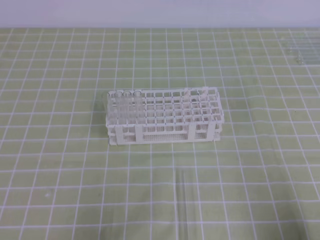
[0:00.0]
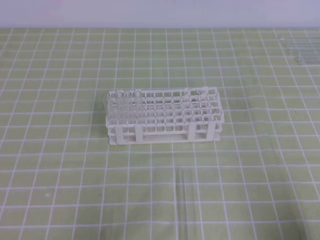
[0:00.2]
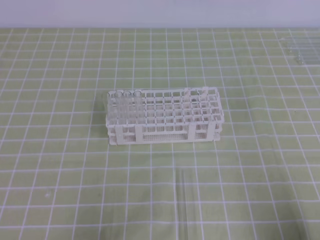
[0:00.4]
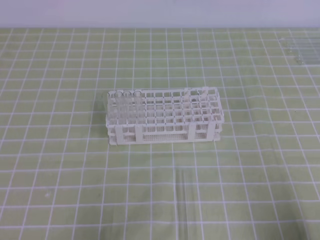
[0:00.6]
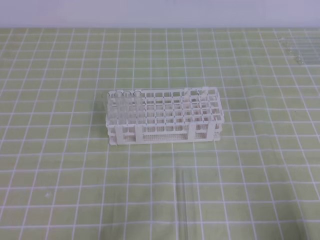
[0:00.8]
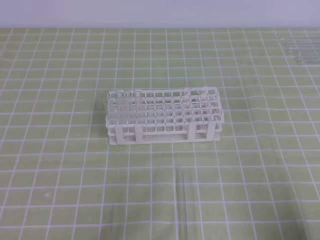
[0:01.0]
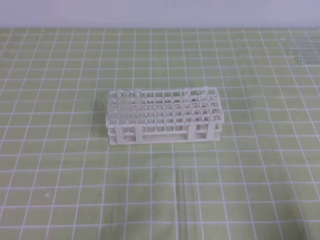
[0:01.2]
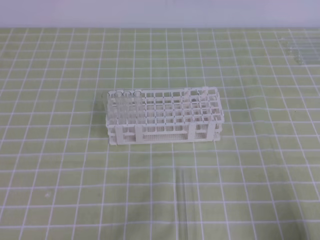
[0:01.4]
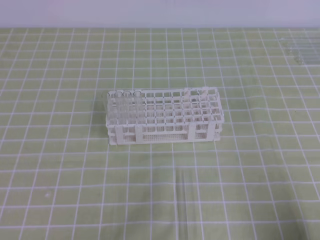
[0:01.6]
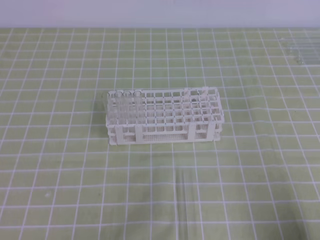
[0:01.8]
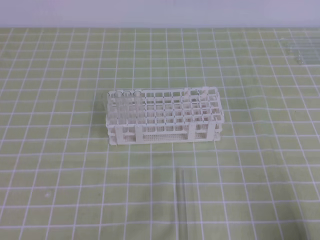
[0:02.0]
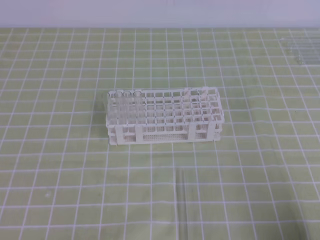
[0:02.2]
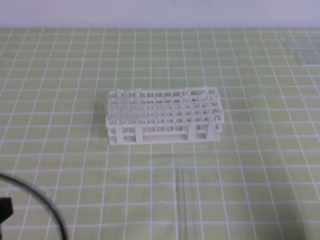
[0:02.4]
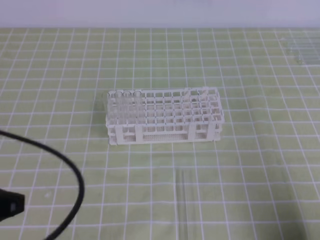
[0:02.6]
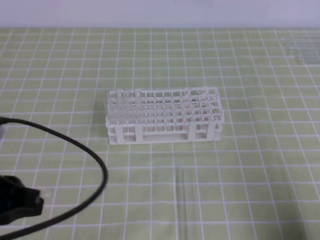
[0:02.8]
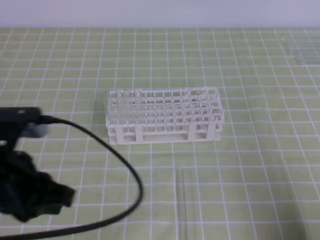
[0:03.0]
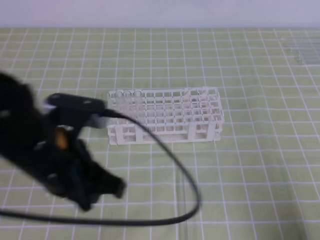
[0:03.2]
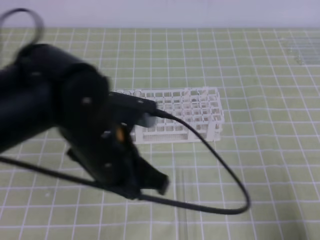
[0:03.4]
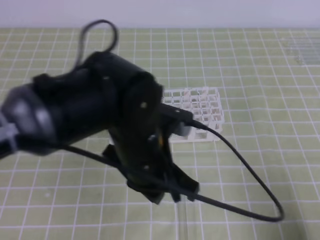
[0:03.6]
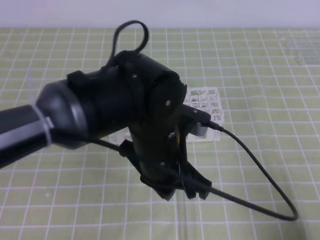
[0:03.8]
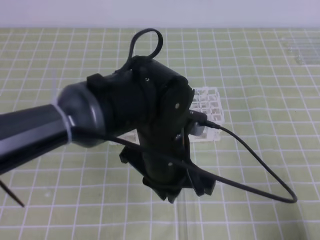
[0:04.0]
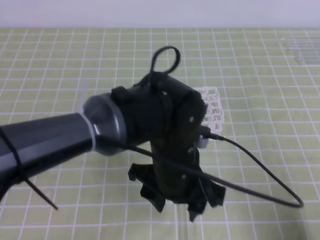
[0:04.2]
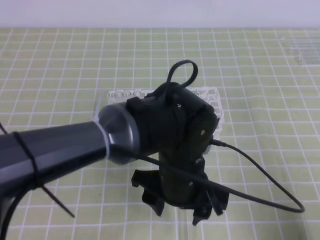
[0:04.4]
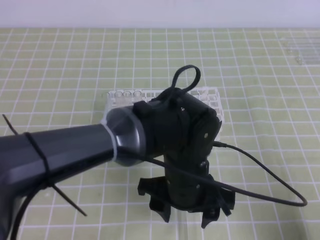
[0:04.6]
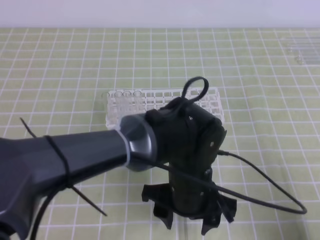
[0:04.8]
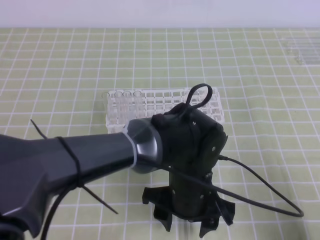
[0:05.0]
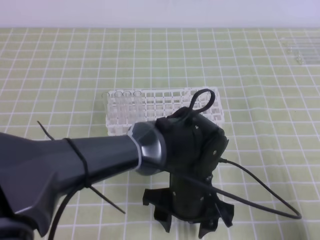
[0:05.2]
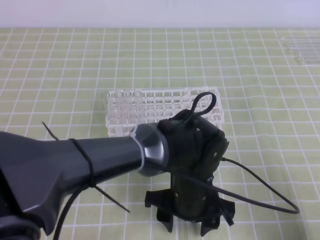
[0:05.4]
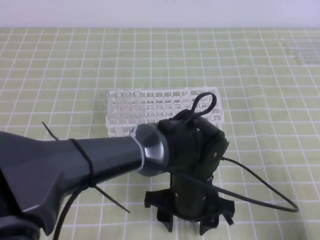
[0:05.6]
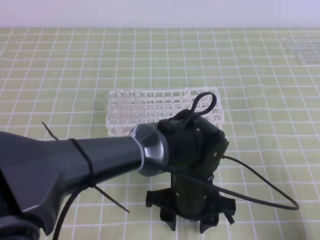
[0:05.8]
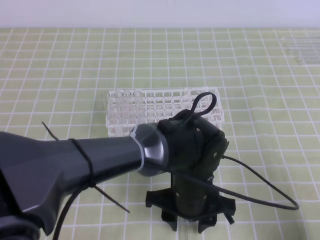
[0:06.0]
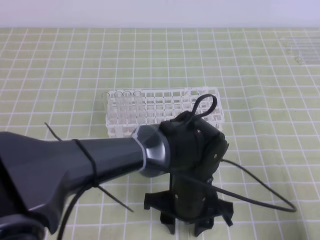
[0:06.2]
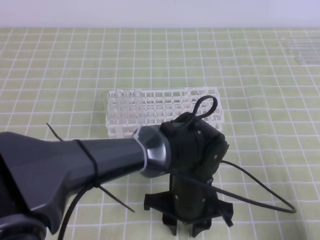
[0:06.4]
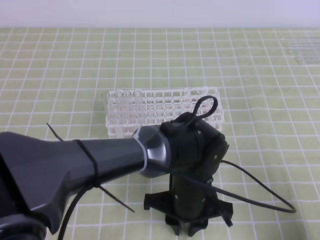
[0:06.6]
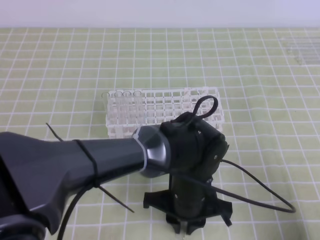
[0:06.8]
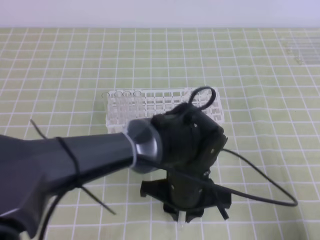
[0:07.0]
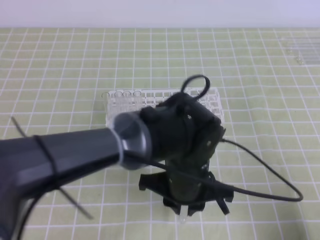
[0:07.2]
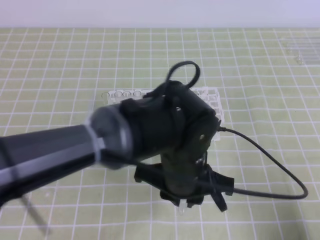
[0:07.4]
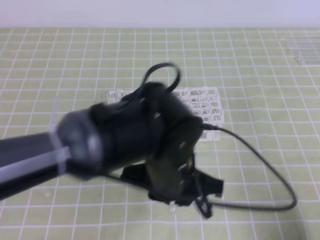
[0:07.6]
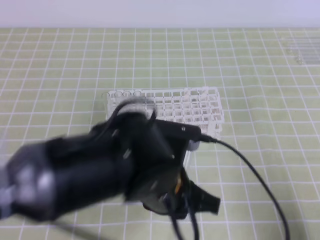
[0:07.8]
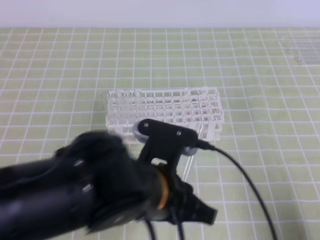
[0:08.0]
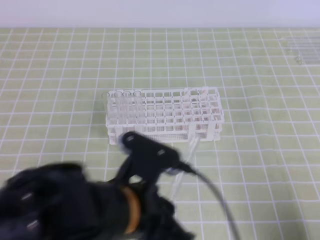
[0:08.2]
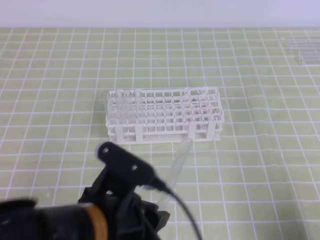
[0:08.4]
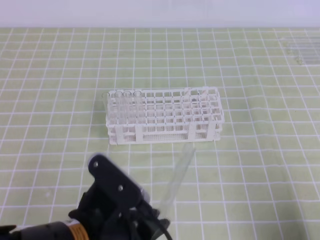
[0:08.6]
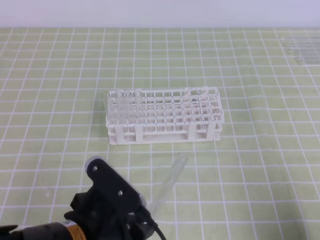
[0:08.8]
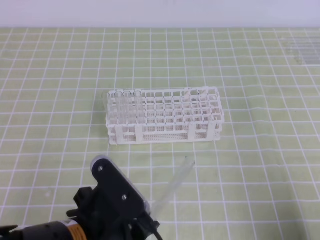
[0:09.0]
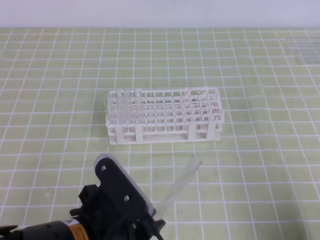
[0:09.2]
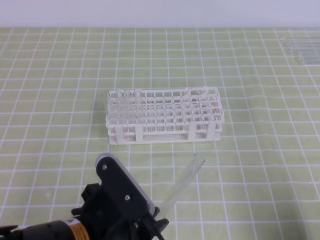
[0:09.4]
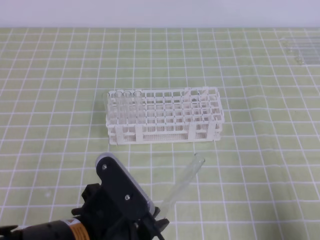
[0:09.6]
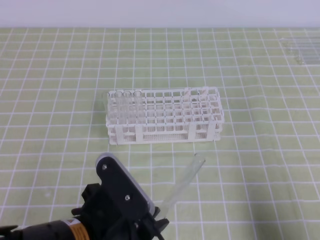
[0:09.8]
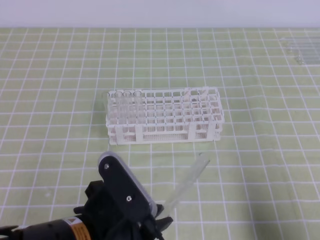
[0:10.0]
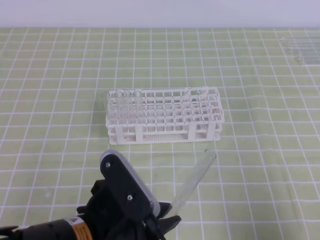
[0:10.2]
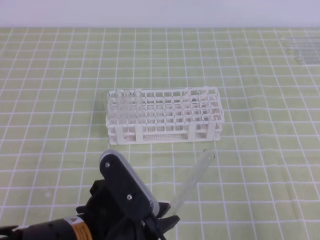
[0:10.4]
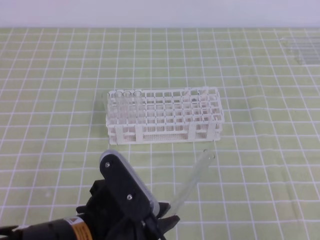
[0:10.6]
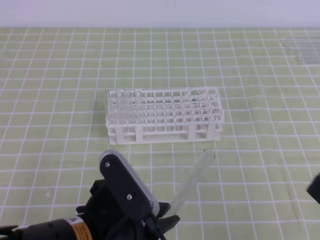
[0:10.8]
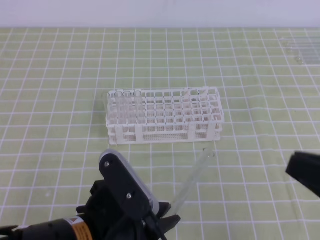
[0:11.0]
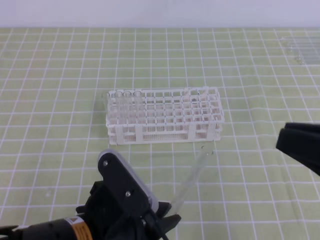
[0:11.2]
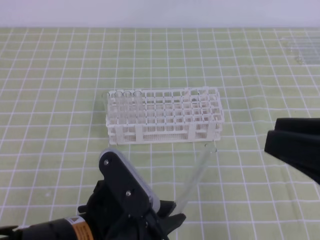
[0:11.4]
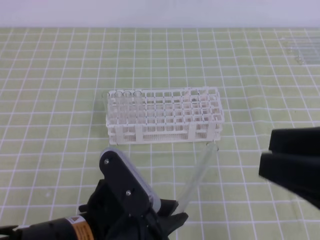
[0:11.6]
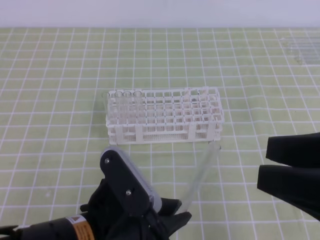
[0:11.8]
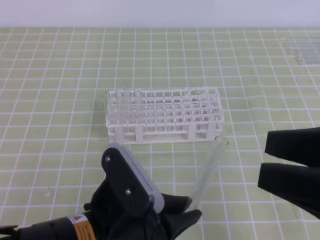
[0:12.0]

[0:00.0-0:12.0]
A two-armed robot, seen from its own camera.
0:01.6 to 0:03.0: The left gripper is displaced upward, forward and to the right by roughly 15 cm.
0:03.0 to 0:04.4: The left gripper moves to the right, roughly 25 cm, and opens its fingers.
0:04.4 to 0:06.0: The left gripper heads downward, covering approximately 5 cm.
0:06.0 to 0:07.6: The left gripper is displaced upward by about 5 cm, and closes its fingers.
0:07.6 to 0:09.0: The left gripper goes some 15 cm to the left and backward.
0:10.4 to 0:12.0: The right gripper goes about 15 cm upward, and opens.

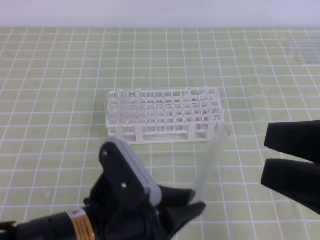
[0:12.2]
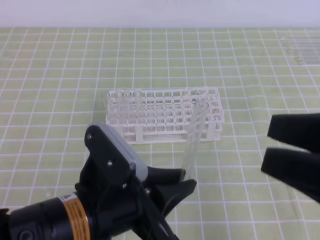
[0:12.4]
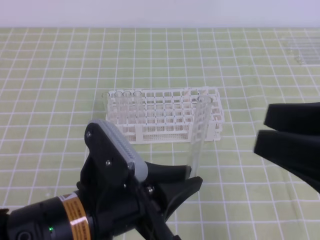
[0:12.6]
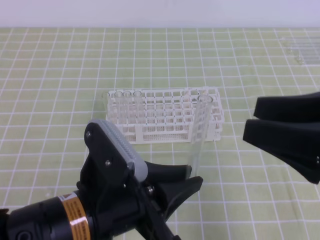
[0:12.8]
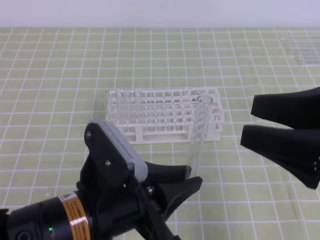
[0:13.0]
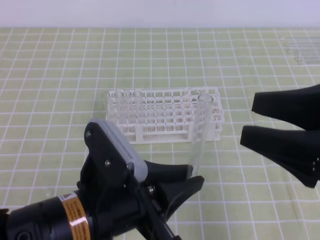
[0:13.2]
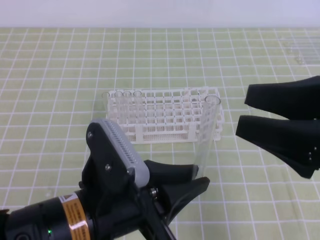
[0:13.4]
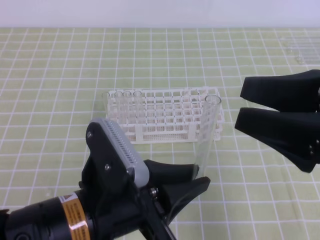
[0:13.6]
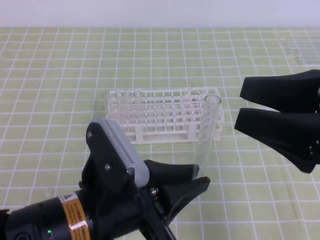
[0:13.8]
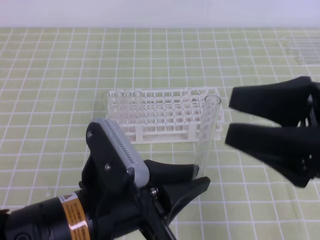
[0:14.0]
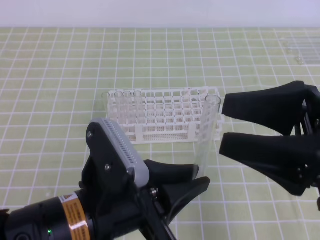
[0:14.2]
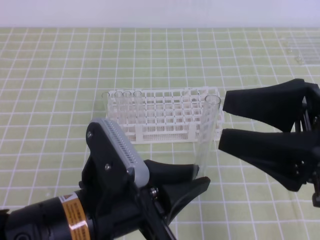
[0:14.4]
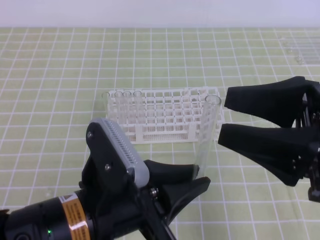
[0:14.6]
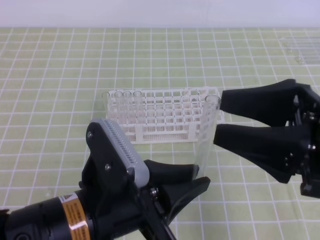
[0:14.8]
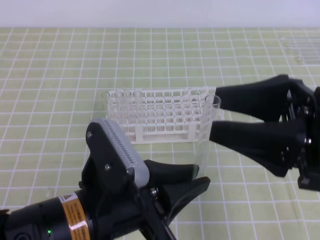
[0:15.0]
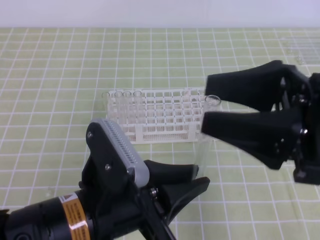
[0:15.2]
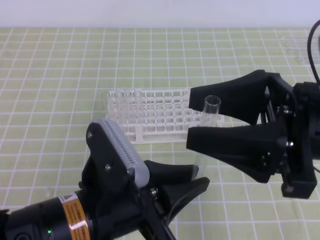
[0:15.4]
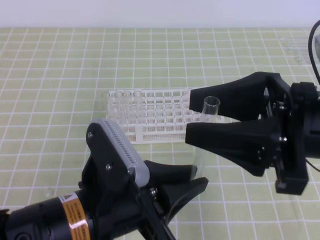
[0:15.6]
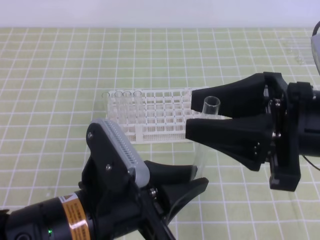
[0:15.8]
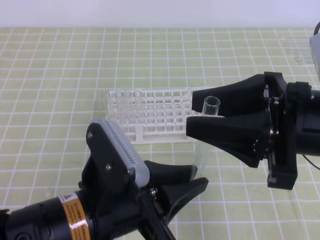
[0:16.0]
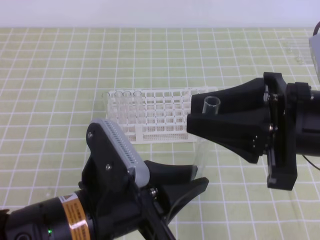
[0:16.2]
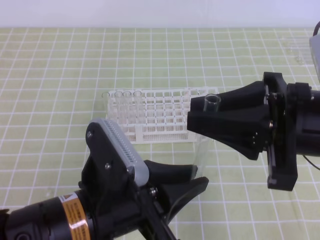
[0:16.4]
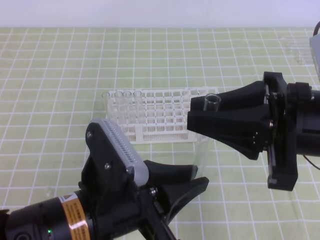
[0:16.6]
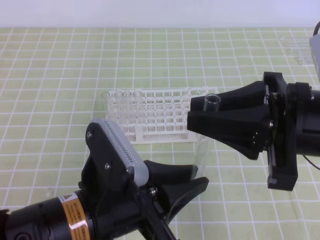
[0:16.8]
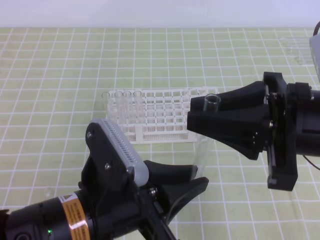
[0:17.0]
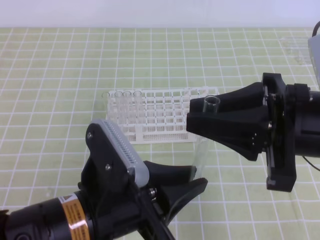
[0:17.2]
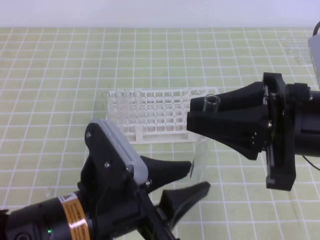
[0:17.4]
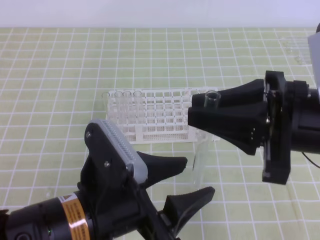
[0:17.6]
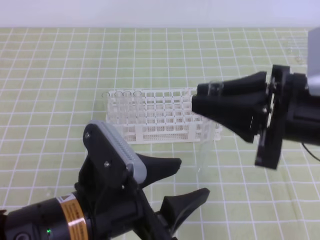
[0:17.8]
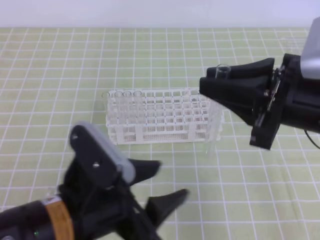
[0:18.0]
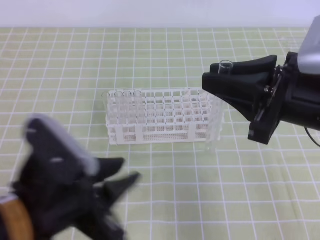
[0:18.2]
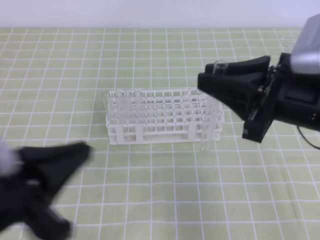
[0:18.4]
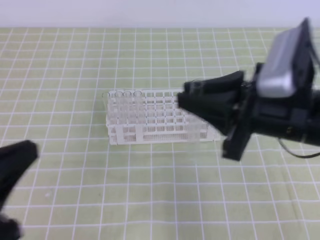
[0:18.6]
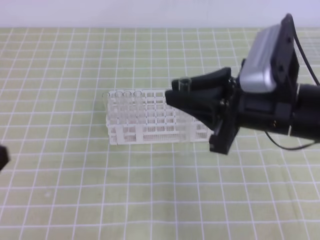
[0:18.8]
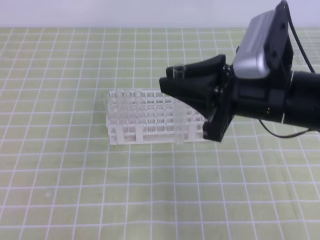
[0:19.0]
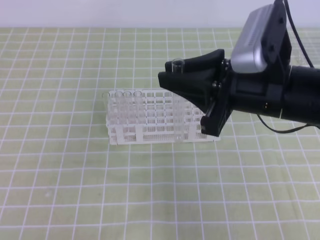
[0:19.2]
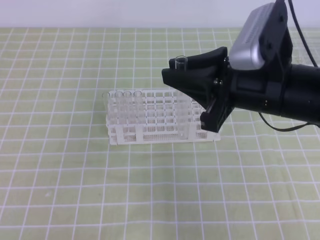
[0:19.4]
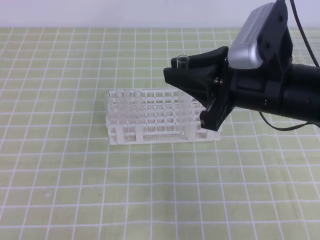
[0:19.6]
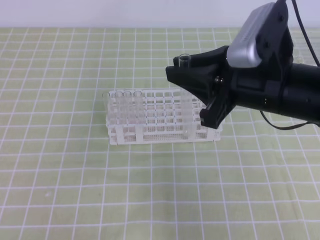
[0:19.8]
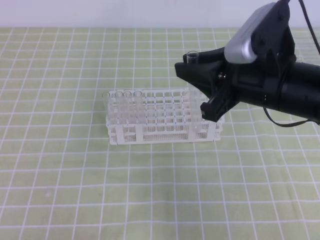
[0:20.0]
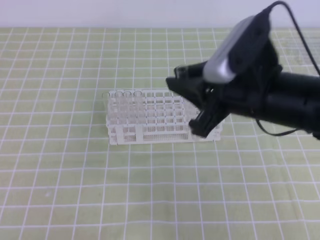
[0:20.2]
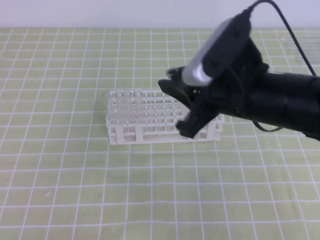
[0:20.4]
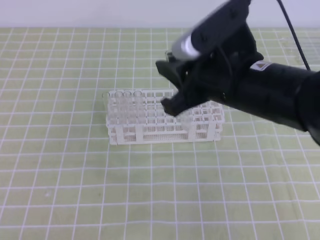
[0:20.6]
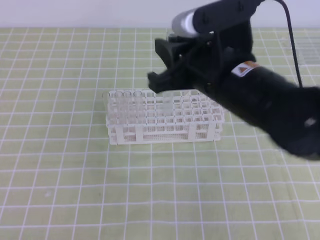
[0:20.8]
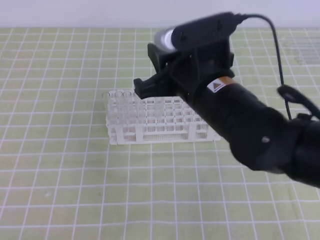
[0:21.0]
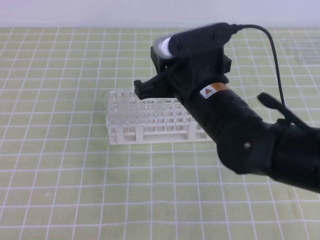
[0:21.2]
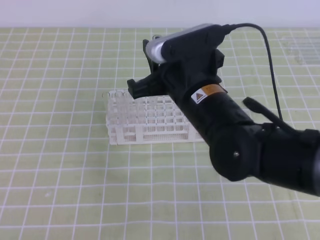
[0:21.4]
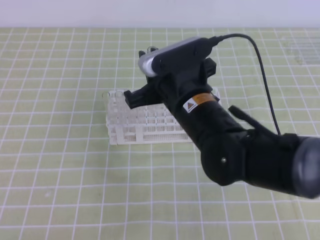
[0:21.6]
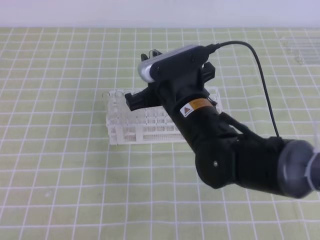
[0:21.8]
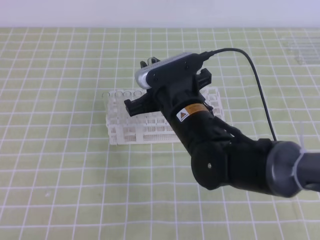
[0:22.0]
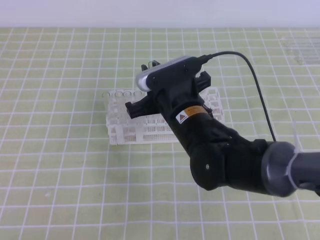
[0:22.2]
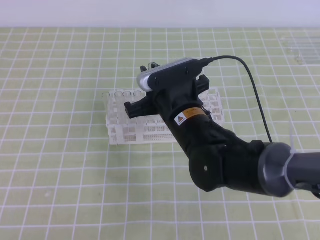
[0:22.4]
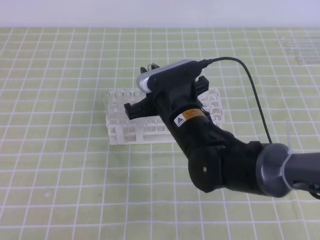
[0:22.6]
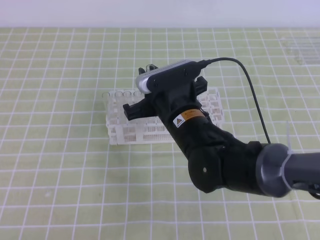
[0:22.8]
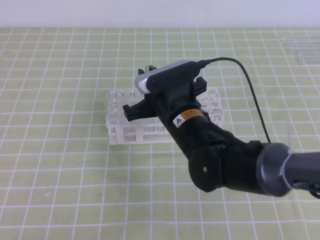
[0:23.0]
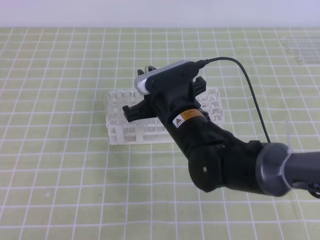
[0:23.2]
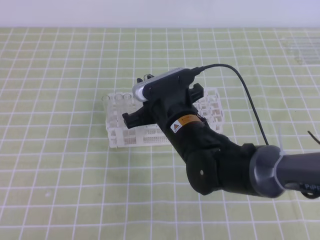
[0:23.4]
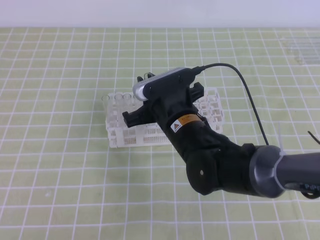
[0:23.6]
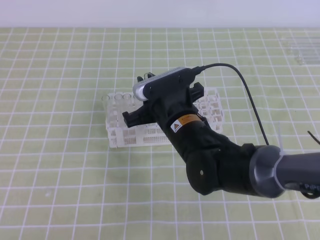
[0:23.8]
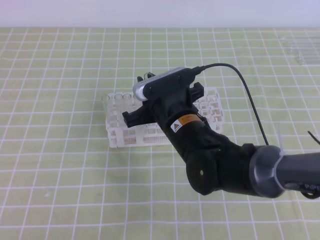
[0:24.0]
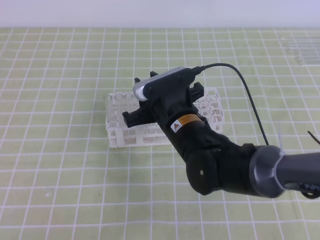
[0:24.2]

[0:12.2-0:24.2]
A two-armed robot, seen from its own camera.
0:12.2 to 0:13.8: The right gripper goes about 5 cm forward.
0:13.8 to 0:15.2: The grippers move only a little.
0:15.2 to 0:16.6: The right gripper closes.
0:16.6 to 0:18.2: The left gripper opens its fingers.
0:18.2 to 0:19.8: The left gripper travels to the left by roughly 15 cm, and closes. The right gripper shifts by about 5 cm.
0:19.8 to 0:21.2: The right gripper travels to the left by about 10 cm.
0:21.2 to 0:22.6: The right gripper travels downward by some 10 cm.
0:22.6 to 0:24.2: The grippers make only small movements.
